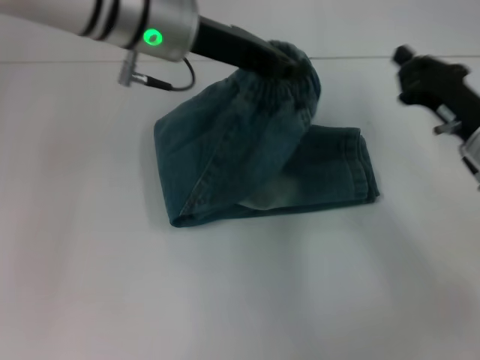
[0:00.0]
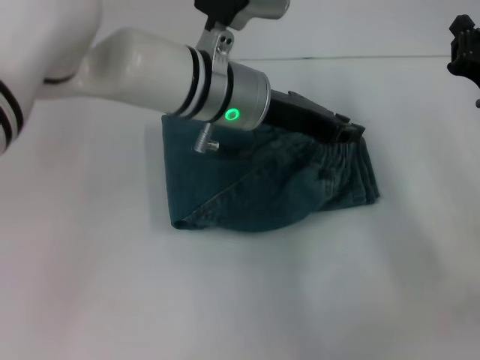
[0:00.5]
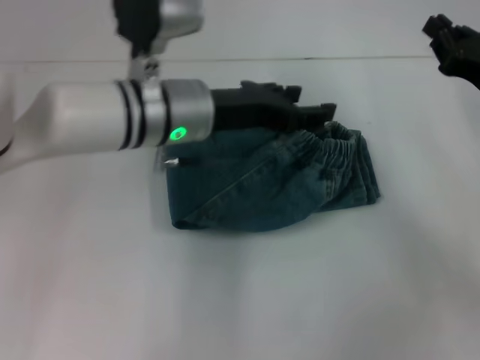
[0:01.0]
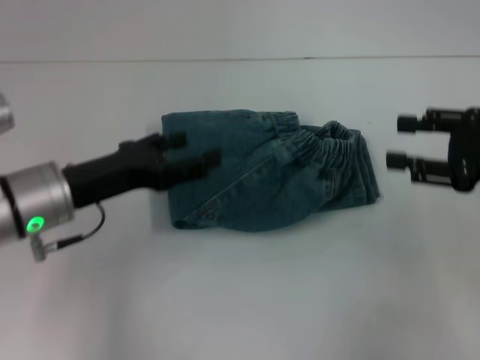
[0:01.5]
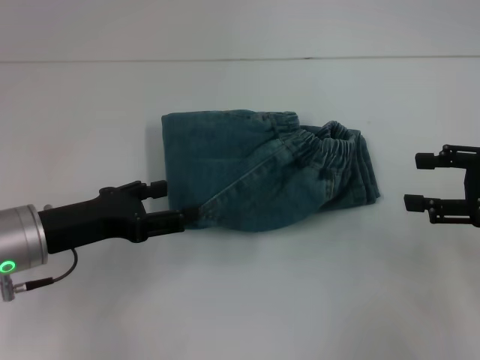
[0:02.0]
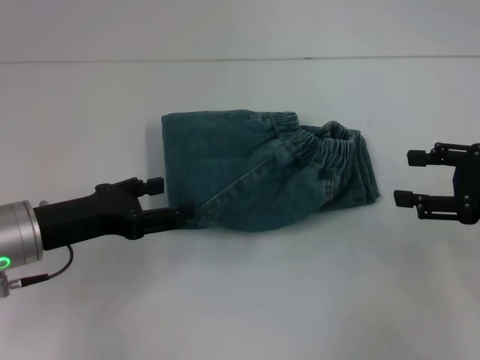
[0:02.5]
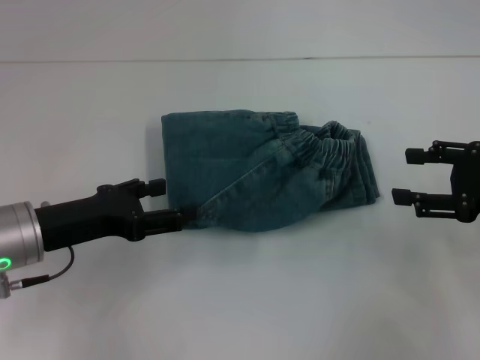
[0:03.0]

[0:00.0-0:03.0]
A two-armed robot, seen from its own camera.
Step, 0:00.0 to 0:02.0: Fold to the left with your right hand.
0:00.0 to 0:01.5: The right gripper shifts about 10 cm upward and to the right, and opens its fingers, while the left gripper goes approximately 20 cm downward, to the left and backward, and opens.
0:01.5 to 0:03.0: There are only small adjustments of the grippers.

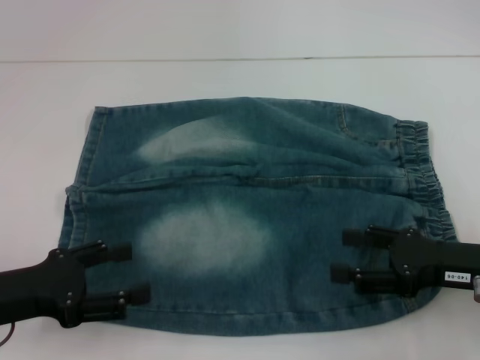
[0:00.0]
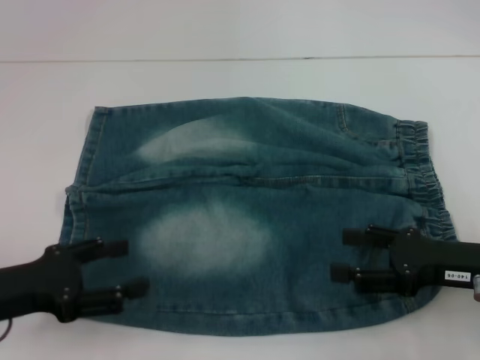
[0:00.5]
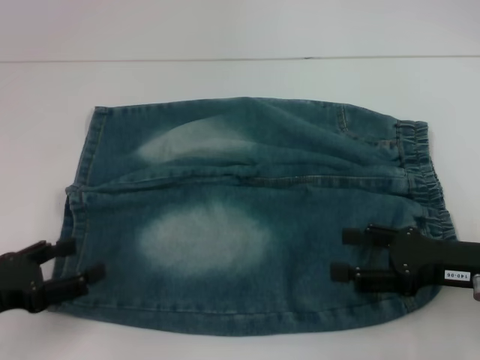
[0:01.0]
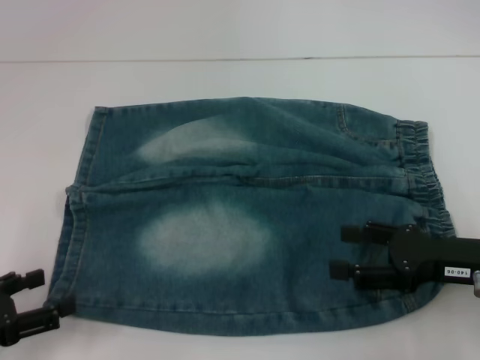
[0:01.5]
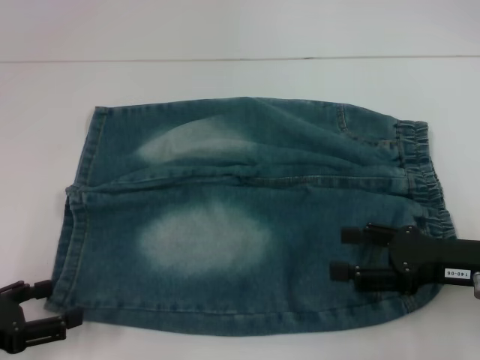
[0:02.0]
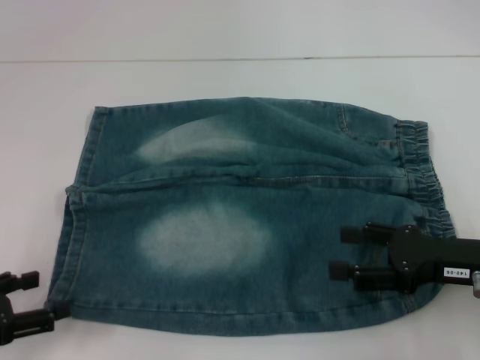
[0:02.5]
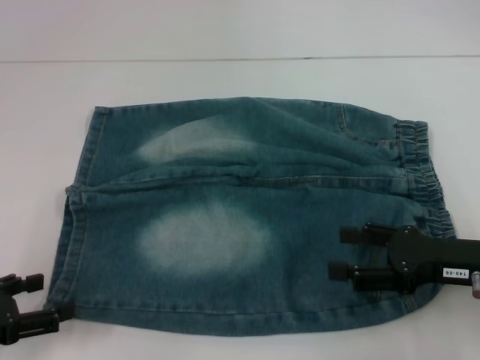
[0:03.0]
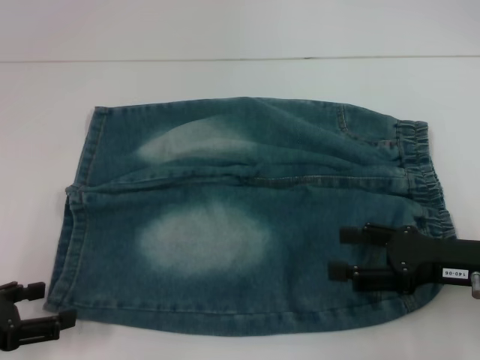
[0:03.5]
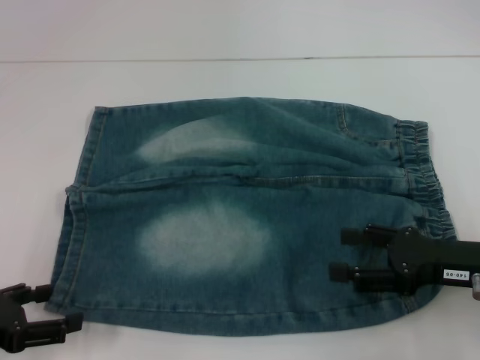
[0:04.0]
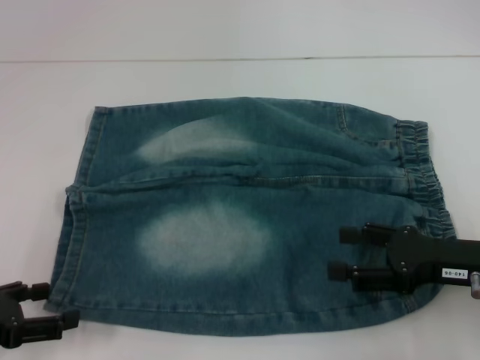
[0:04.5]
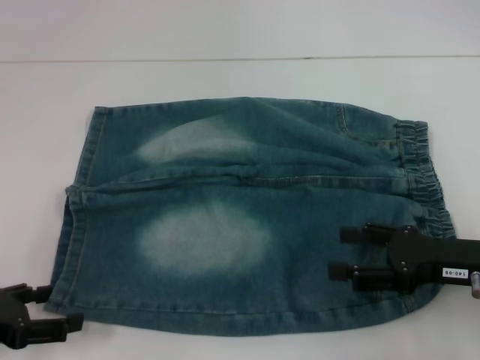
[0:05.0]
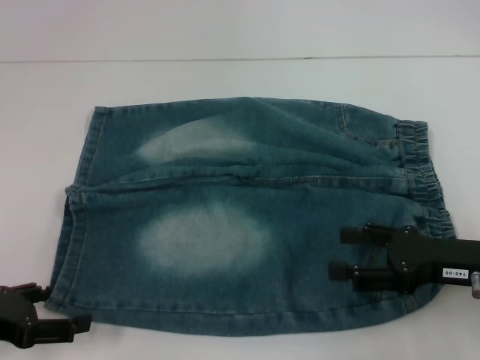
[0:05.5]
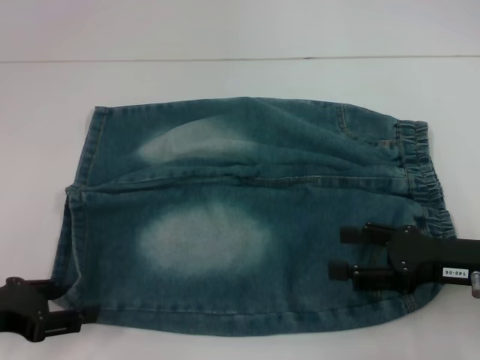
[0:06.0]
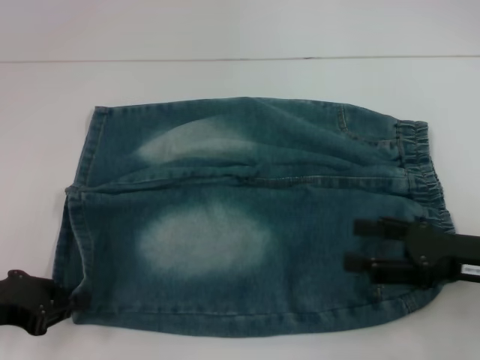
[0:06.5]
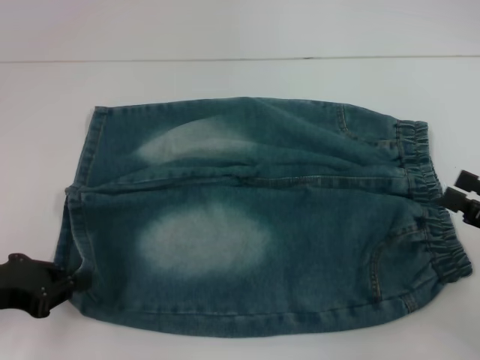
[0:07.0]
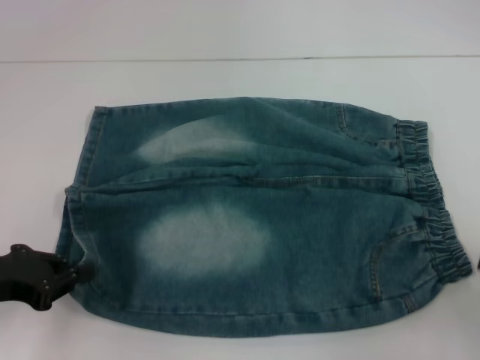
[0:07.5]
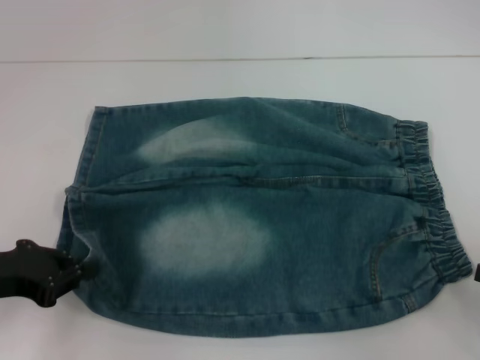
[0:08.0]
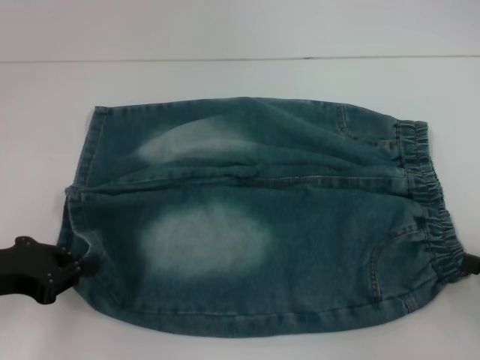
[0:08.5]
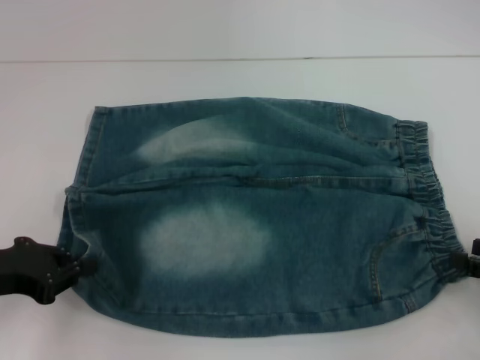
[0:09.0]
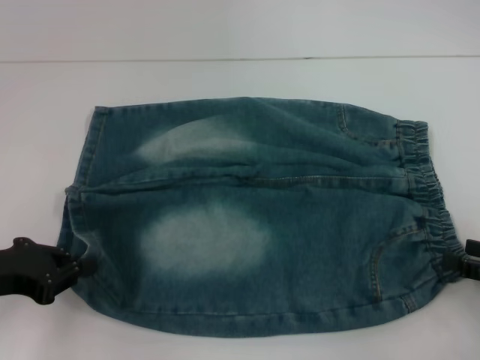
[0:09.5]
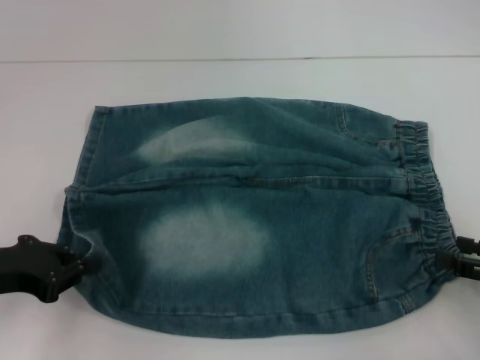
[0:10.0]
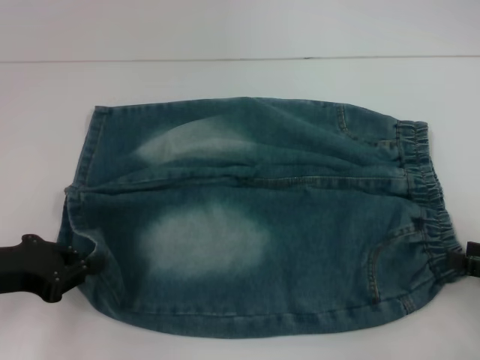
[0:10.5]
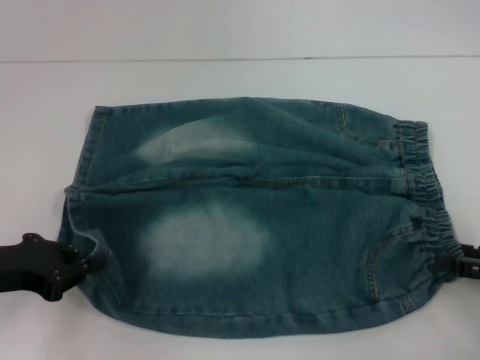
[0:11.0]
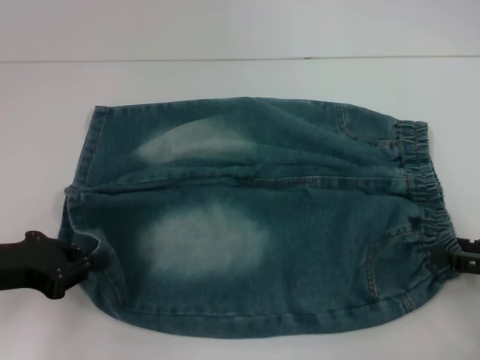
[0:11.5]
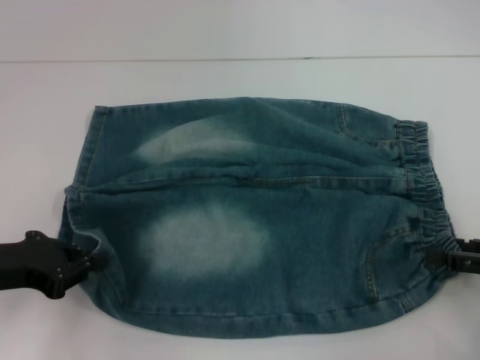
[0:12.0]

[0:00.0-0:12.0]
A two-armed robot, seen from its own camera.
Step, 0:00.0 to 0:06.5: Grab the lower left pant leg with your left hand.
0:00.0 to 0:02.0: The left gripper changes place by some 5 cm.
0:04.0 to 0:06.0: There are only small adjustments of the grippers.
0:06.0 to 0:08.0: The right gripper heads to the right and backward, covering some 15 cm. Meanwhile the left gripper closes its fingers.
0:08.0 to 0:10.0: There are only small adjustments of the grippers.
0:10.0 to 0:12.0: The grippers make only small movements.

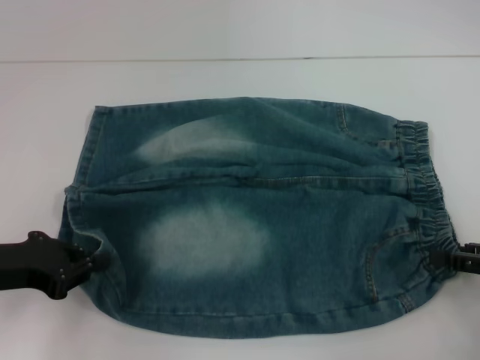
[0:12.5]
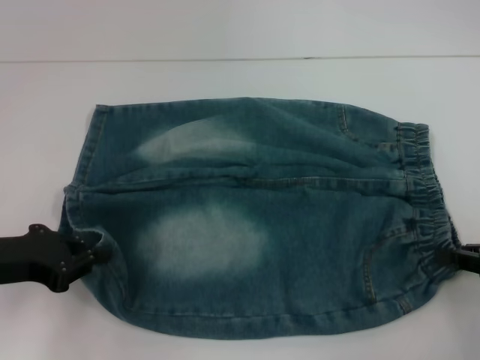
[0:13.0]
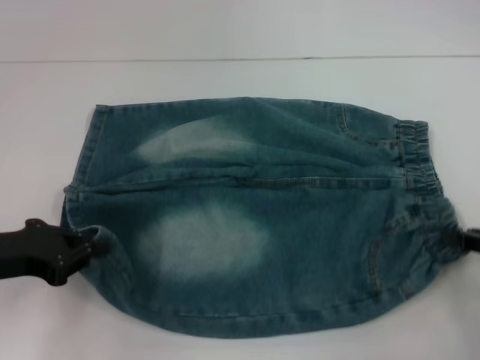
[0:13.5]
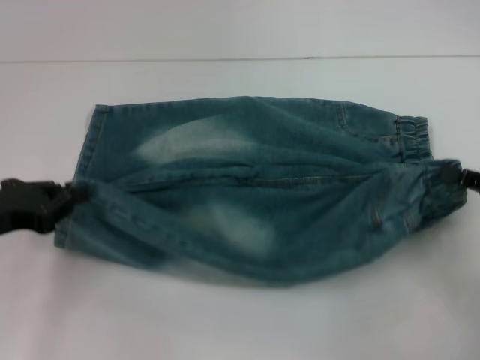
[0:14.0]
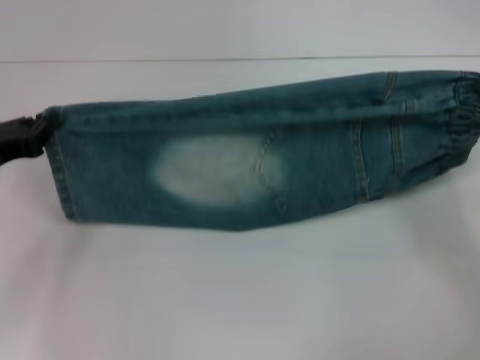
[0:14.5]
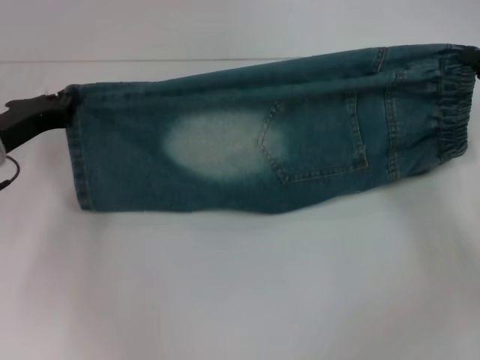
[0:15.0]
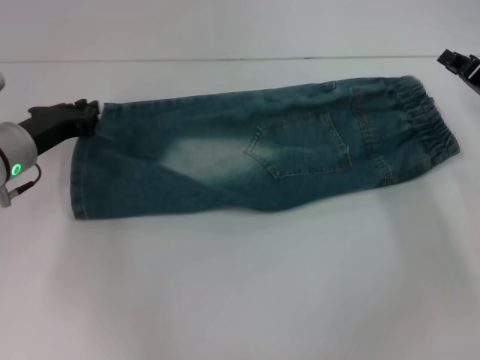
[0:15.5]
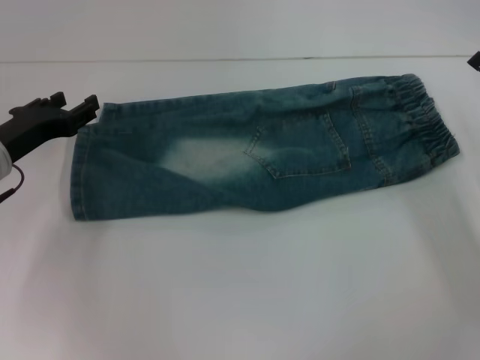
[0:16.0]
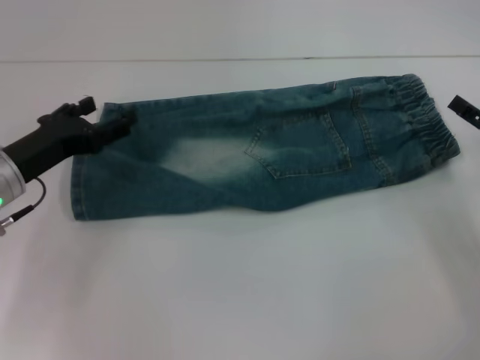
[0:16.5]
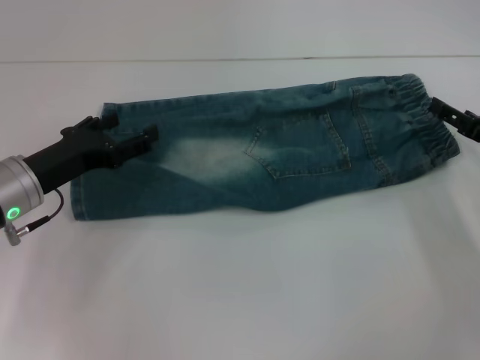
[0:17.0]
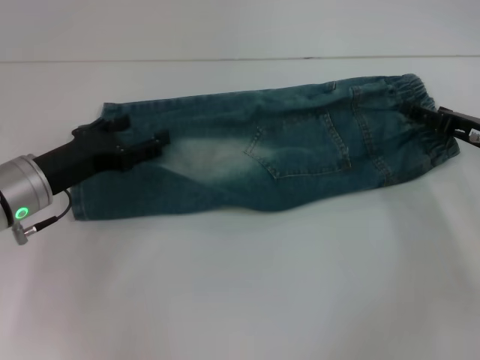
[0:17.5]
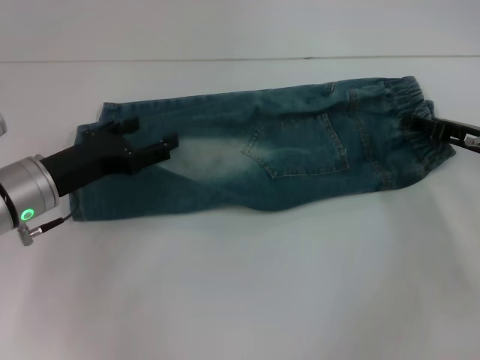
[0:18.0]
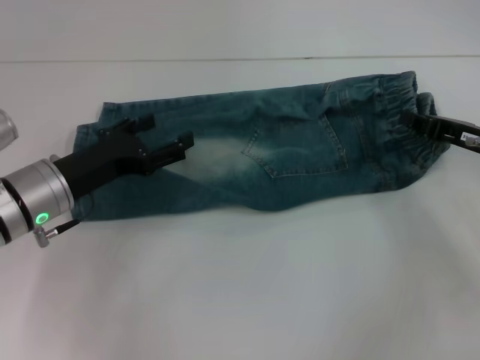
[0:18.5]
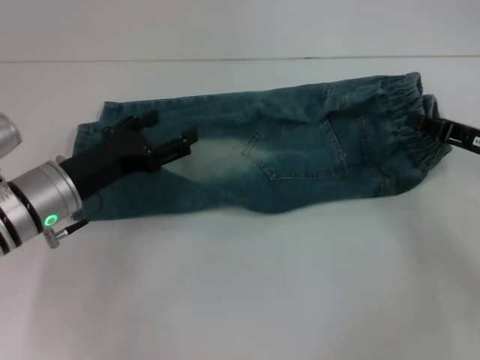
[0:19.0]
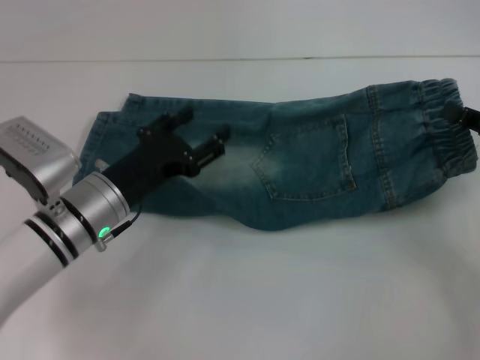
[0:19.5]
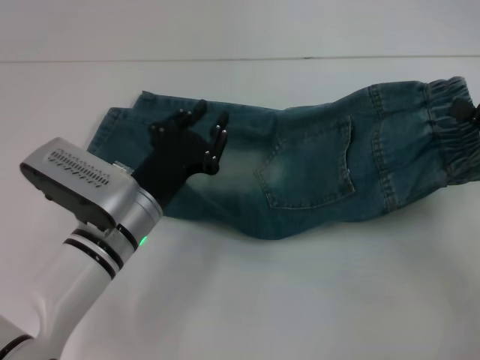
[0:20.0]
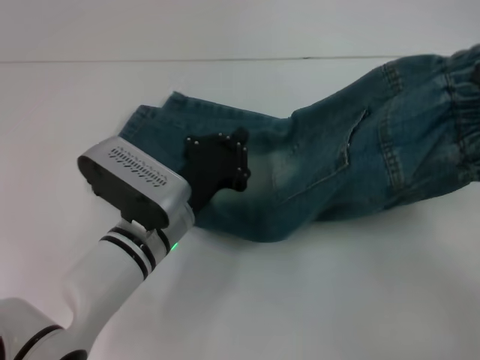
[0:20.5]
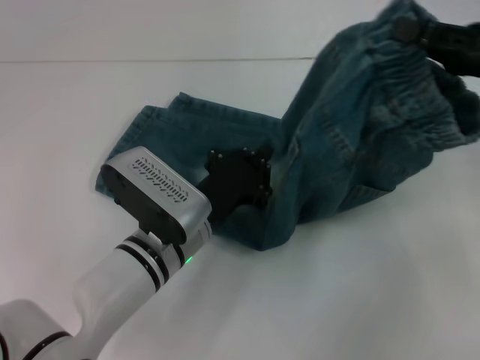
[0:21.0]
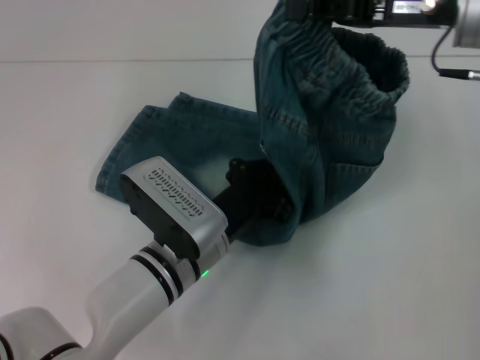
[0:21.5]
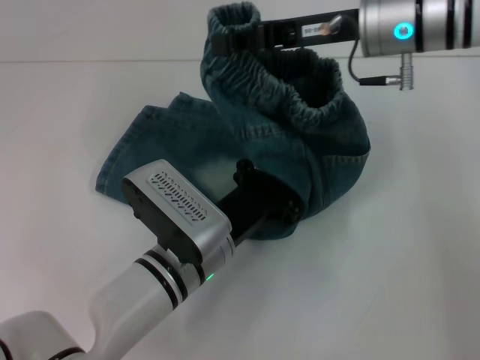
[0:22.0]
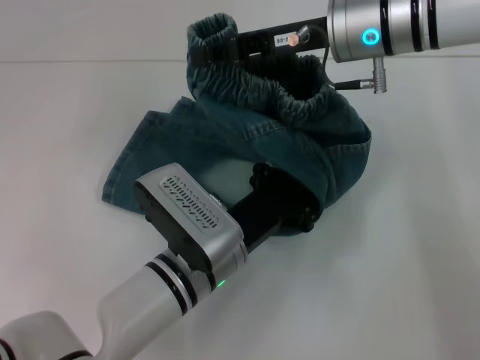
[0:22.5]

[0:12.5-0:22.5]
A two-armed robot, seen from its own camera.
Step, 0:13.5 to 0:15.0: Fold upward with your right hand.
Step, 0:16.0 to 0:19.0: Grab the waistband with your right hand.
0:12.5 to 0:14.5: The grippers both shift forward by roughly 5 cm. The right gripper closes its fingers.
0:14.5 to 0:16.5: The right gripper opens its fingers. Meanwhile the left gripper opens up.
0:16.5 to 0:18.5: The right gripper changes place by approximately 5 cm, and closes its fingers.
0:18.5 to 0:20.5: The left gripper is displaced to the right by some 10 cm, and closes up, while the right gripper heads backward and upward, covering about 10 cm.
0:20.5 to 0:22.5: The right gripper moves to the left and forward, roughly 25 cm. The left gripper ends up roughly 5 cm from where it was.
